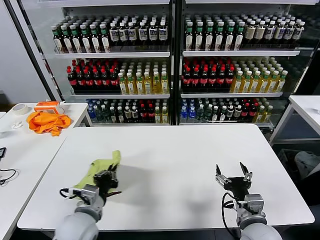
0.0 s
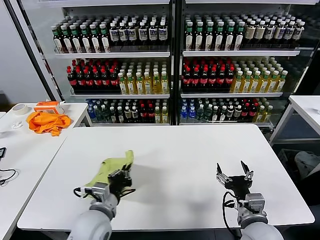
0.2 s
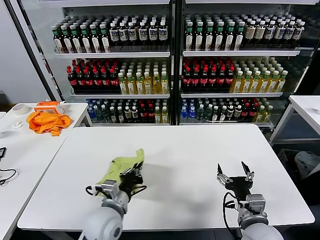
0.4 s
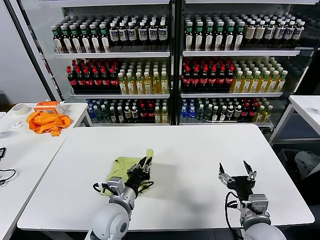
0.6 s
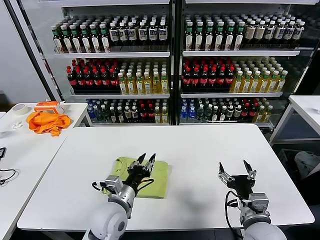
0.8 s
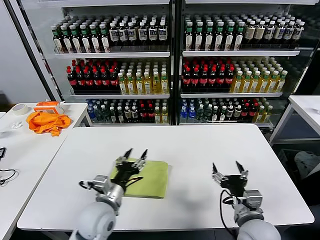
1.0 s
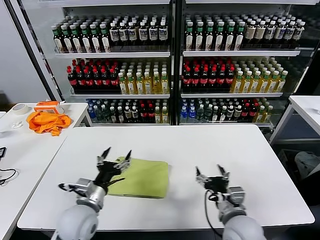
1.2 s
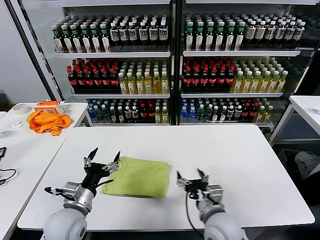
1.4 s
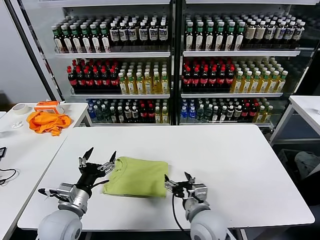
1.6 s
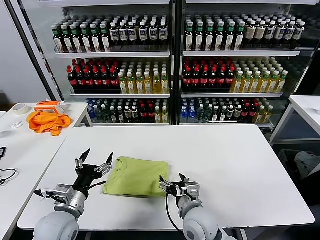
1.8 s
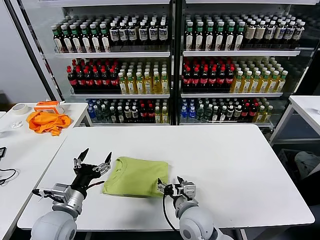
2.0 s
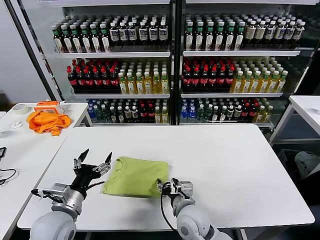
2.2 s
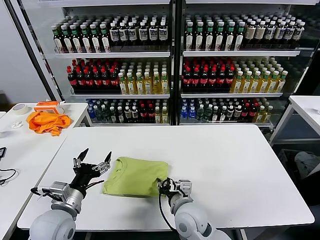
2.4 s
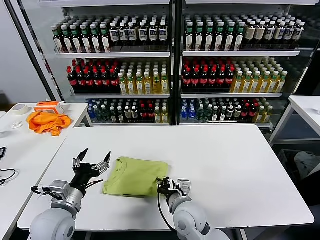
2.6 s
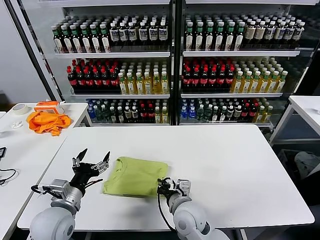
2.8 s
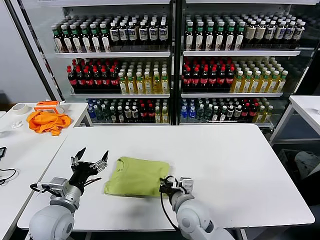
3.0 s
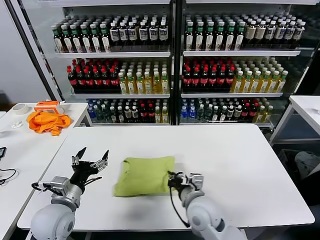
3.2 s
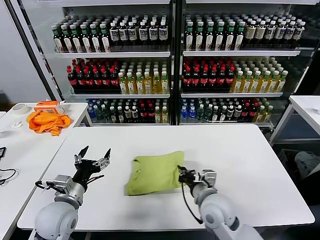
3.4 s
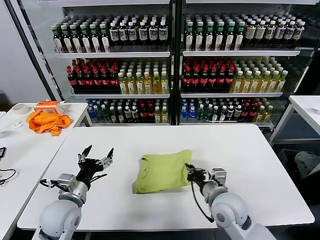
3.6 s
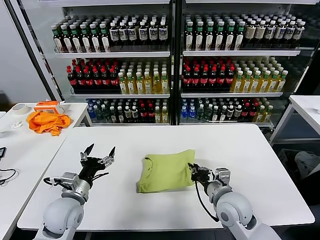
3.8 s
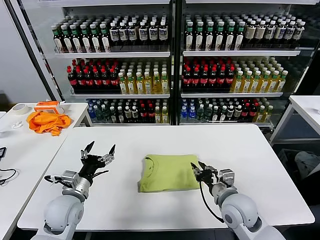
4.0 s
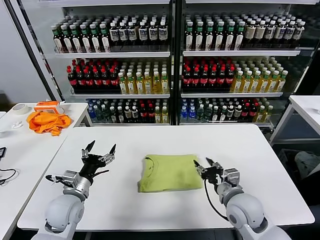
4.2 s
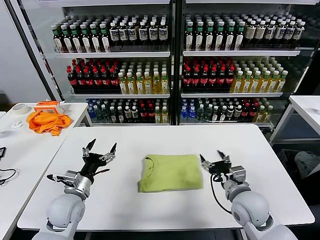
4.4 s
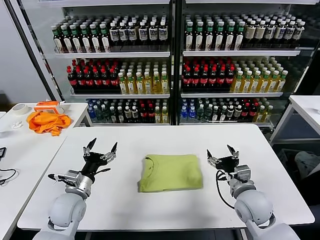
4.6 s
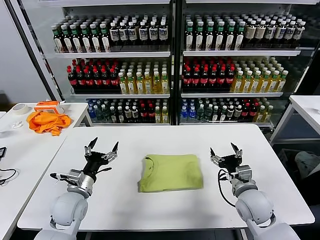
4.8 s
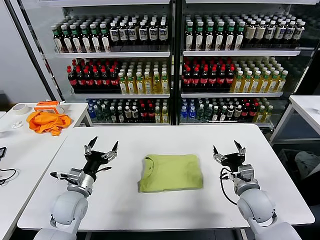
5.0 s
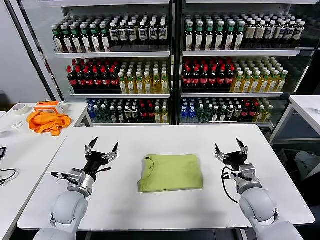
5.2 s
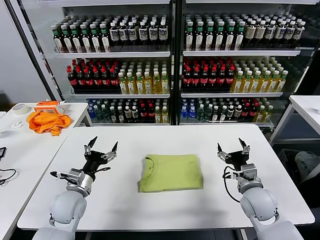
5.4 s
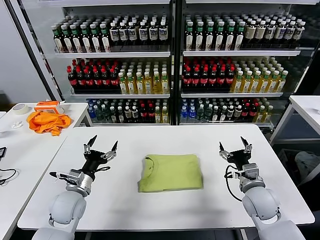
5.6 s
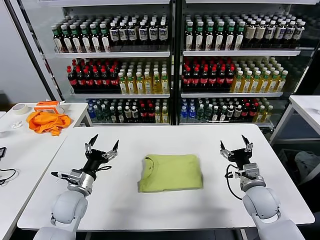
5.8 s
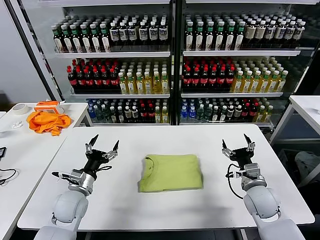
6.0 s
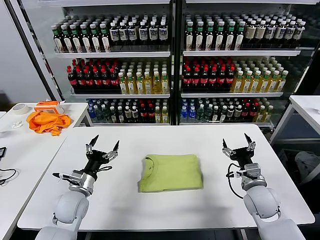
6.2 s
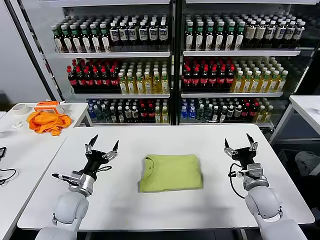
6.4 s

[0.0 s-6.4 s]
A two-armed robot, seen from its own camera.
Task of the whole recording: fold and organize the clothes.
Step, 0.8 to 4.0 s: Drag the clothes to the center of the table.
0.0 to 1.6 s: The left gripper moves approximately 10 cm to the right and comes back, and opens. Meanwhile the right gripper travels to the left by about 10 cm.
1.6 to 3.2 s: The right gripper closes its fingers.
3.2 to 4.8 s: The left gripper goes approximately 5 cm forward. The right gripper travels to the right by approximately 15 cm, and opens its fingers.
4.8 to 6.4 s: The grippers stay close to where they were, moving slightly.

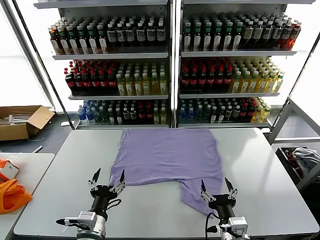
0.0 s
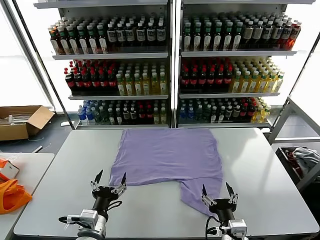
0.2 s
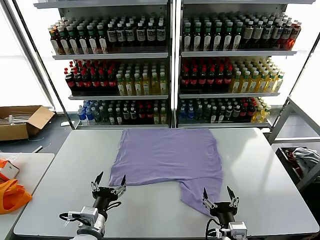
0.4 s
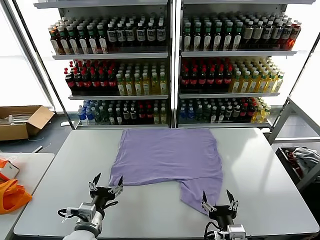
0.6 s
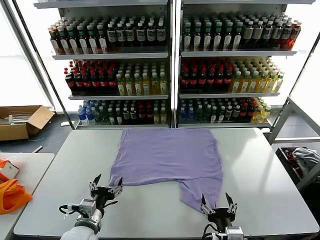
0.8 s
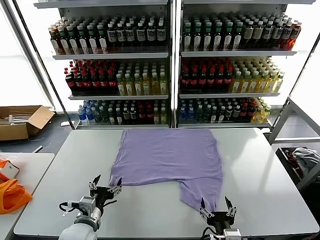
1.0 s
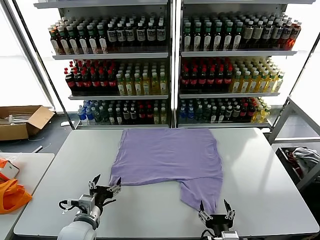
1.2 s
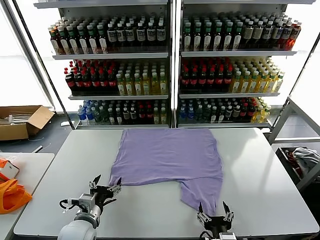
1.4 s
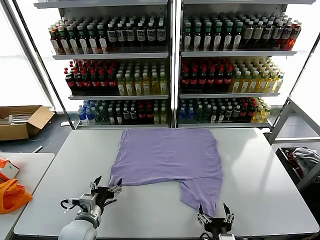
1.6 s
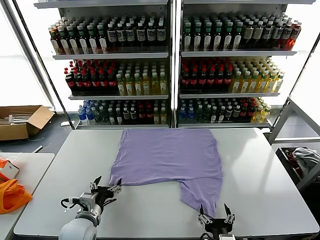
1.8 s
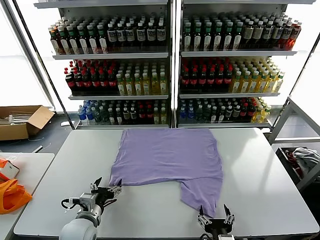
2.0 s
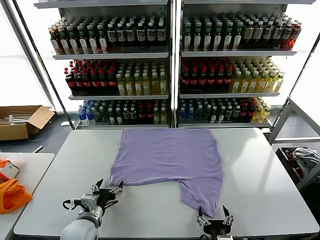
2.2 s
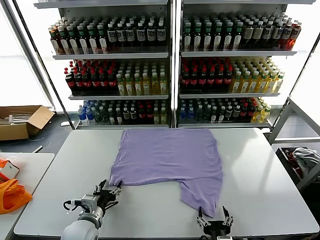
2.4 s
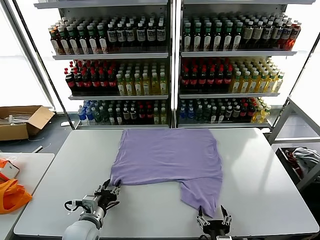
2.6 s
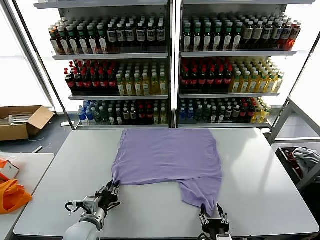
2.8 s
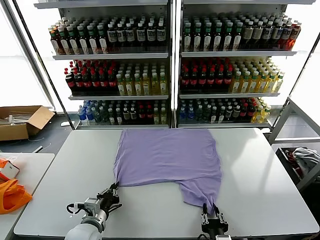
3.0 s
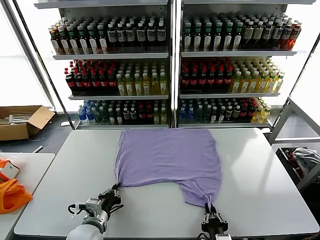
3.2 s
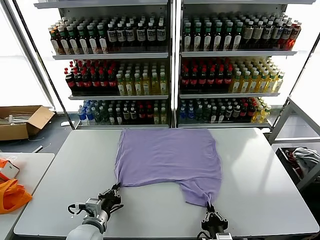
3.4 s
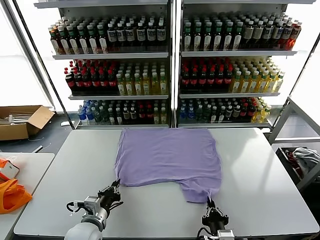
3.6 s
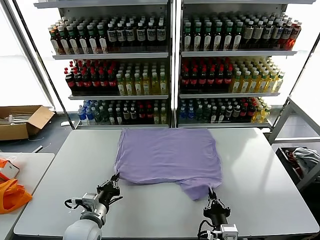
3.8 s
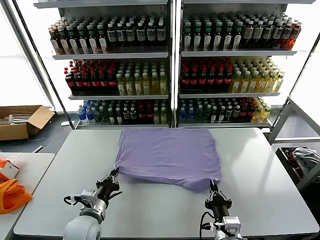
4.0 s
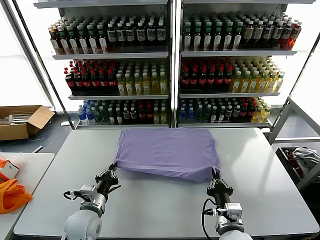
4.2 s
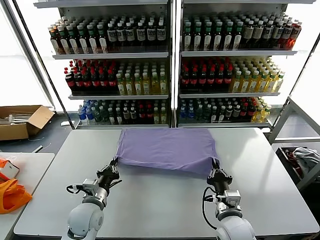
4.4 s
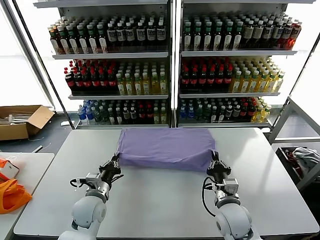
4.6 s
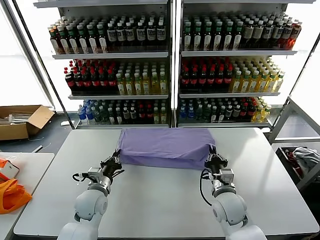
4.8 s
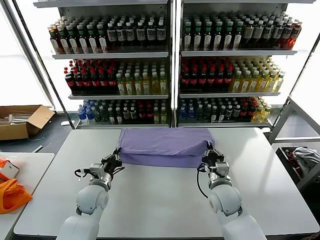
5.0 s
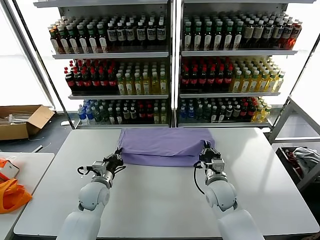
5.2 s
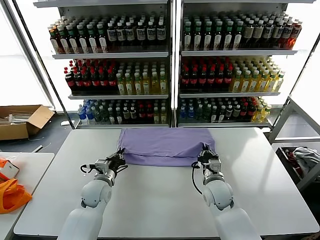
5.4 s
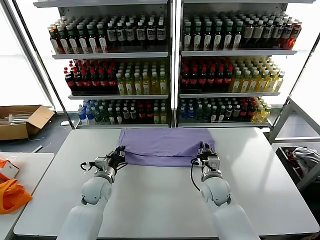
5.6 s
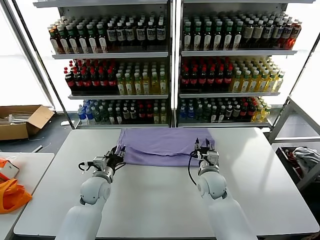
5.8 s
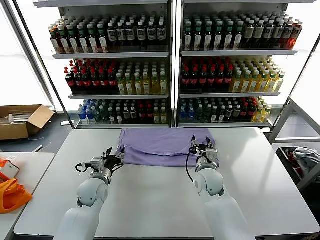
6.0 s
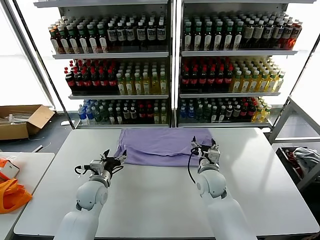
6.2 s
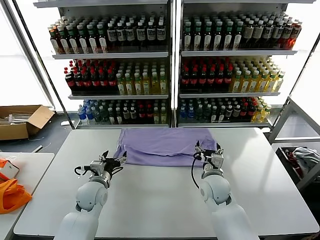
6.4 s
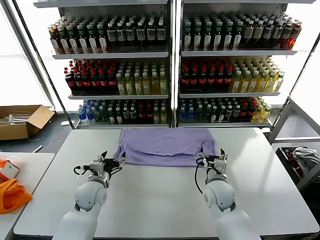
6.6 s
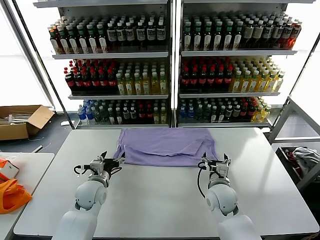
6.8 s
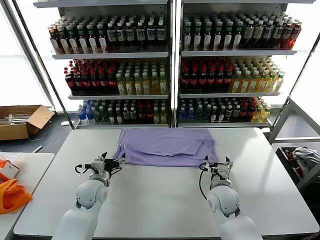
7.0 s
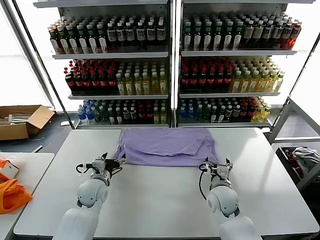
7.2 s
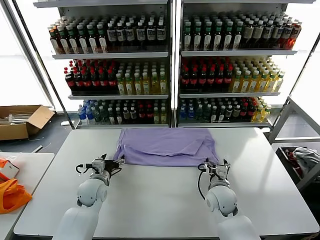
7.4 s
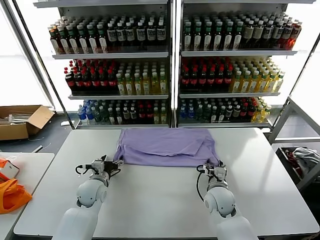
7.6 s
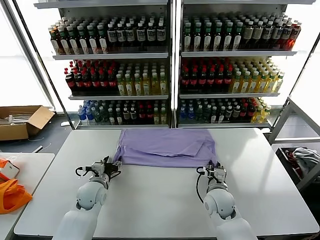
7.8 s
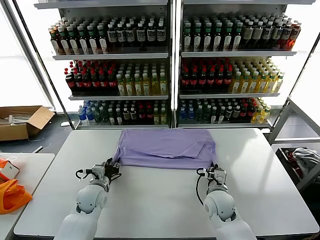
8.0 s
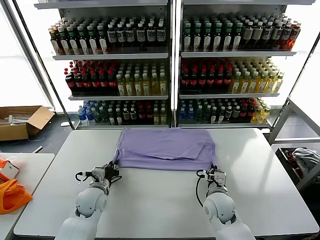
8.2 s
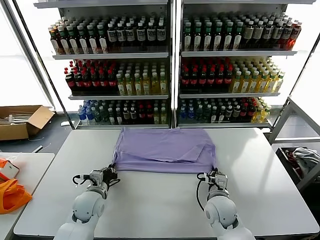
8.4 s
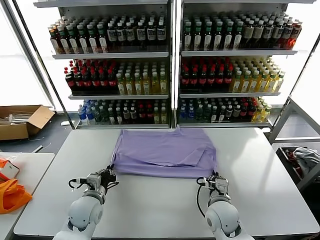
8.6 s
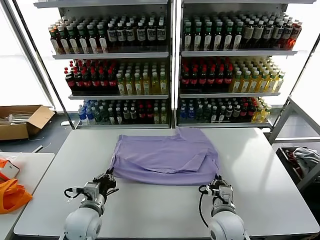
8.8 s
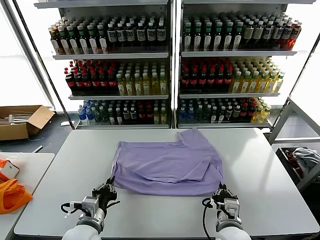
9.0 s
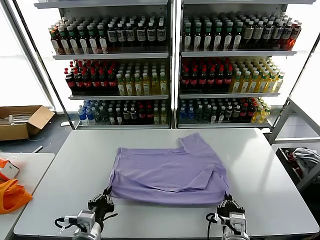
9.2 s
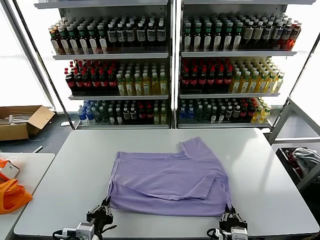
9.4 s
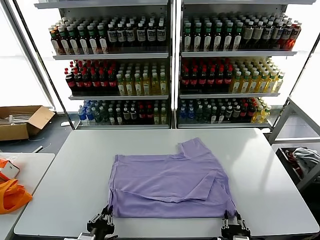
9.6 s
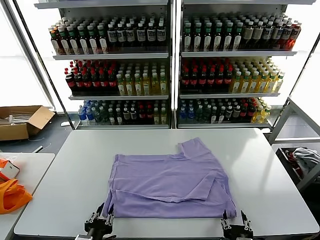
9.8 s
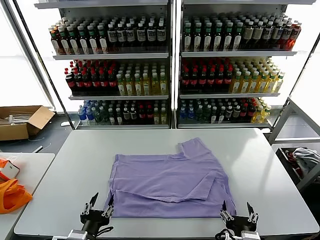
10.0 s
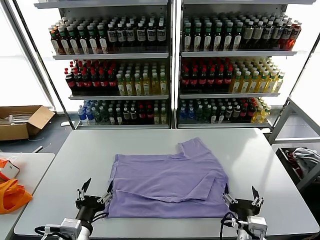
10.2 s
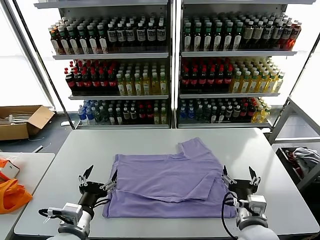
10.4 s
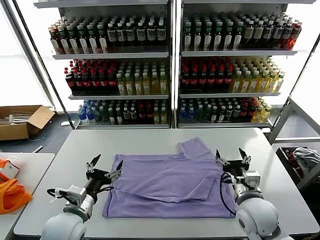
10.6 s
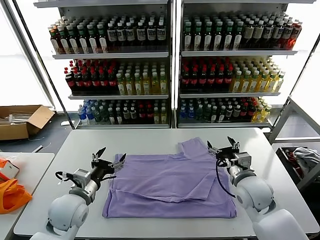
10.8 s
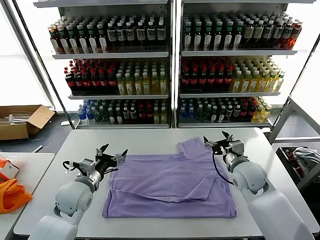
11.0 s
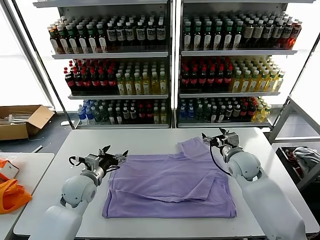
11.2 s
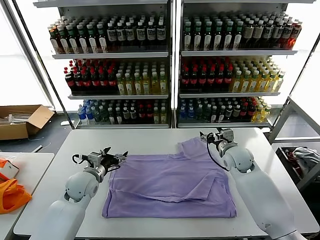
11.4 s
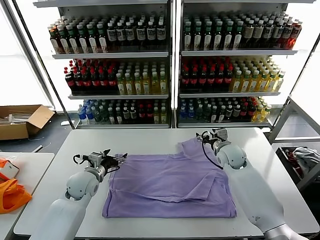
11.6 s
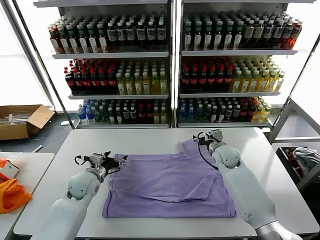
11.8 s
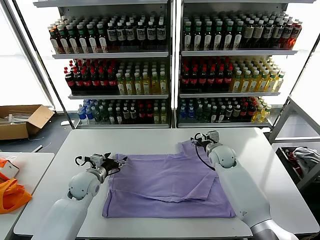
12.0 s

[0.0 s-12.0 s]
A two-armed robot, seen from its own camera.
Task of the whole recording: fold and organize the clothes.
Step, 0.0 to 3.4 s: use both grippers simultaneously to clamp the lower edge of the clothing fabric.
Step, 3.8 to 5.8 s: use both grippers to drag the lower edge of the fabric forward and fold it over the upper edge.
Step, 6.0 to 9.8 s: Drag the clothes downward with both gripper.
1.6 to 3.0 s: The left gripper closes up, while the right gripper closes up.
3.0 to 4.4 s: The left gripper travels forward by approximately 5 cm; the right gripper is displaced forward by about 15 cm.
4.4 to 6.0 s: The left gripper moves forward, some 10 cm, and opens up, while the right gripper heads forward, covering approximately 15 cm, and opens up.
6.0 to 7.6 s: The right gripper travels backward by some 5 cm, and closes up.
7.6 to 9.0 s: Both grippers travel together backward, roughly 15 cm. The left gripper closes up; the right gripper closes.
9.0 to 10.4 s: The left gripper opens its fingers, while the right gripper goes approximately 5 cm upward and to the right, reaches approximately 10 cm backward, then returns, and opens up.
10.4 to 12.0 s: Both grippers move forward, about 25 cm.

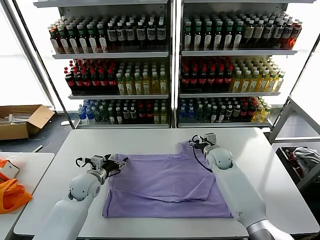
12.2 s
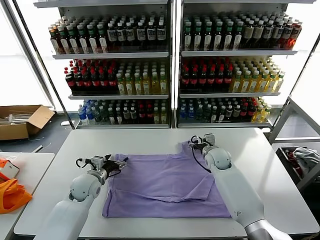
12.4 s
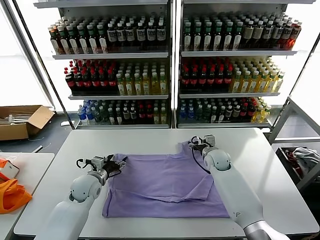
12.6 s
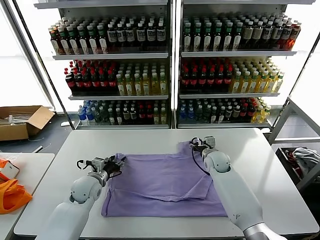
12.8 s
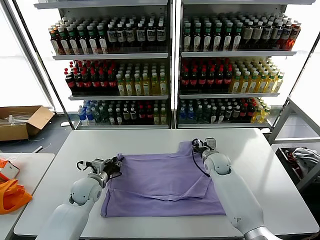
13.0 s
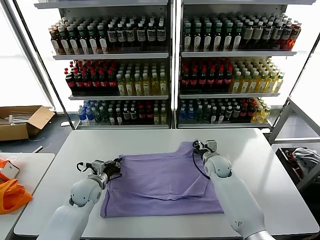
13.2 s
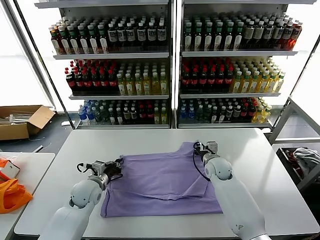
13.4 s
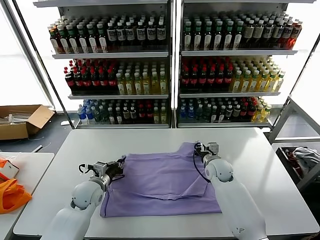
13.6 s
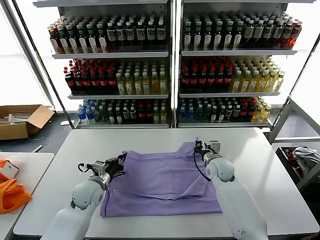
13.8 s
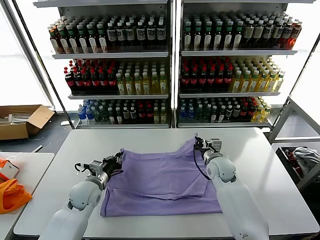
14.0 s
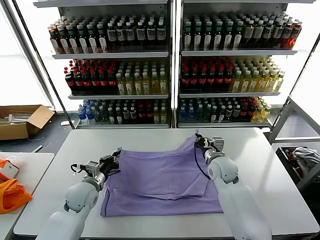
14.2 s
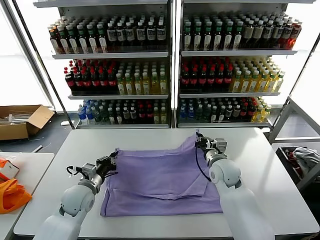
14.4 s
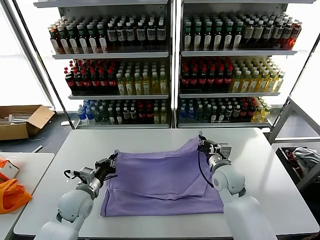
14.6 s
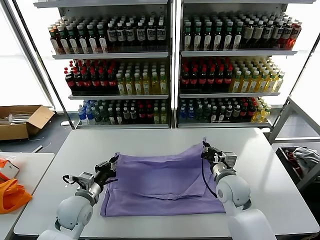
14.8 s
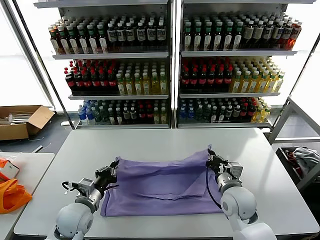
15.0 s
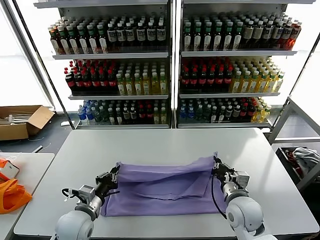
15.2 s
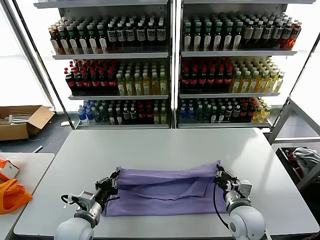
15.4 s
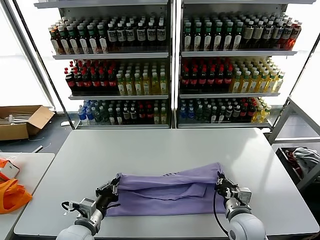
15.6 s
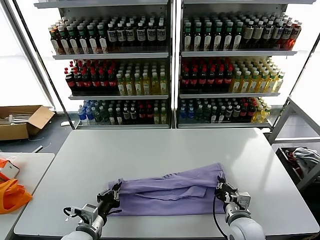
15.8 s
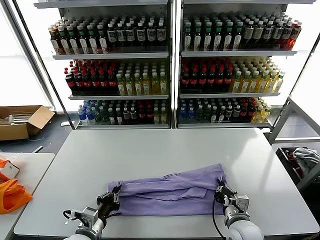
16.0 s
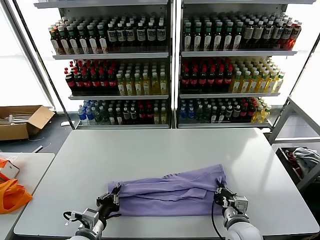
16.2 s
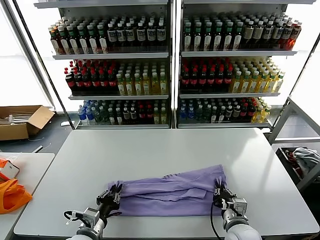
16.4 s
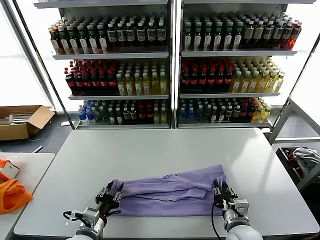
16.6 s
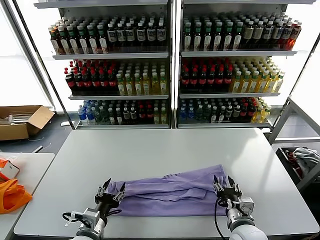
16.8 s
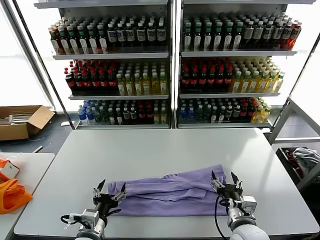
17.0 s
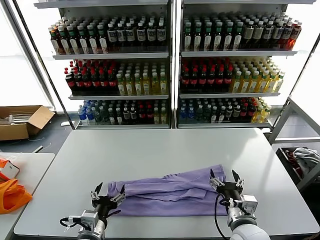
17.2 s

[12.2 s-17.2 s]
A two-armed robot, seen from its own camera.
Task of the whole recording: fold and organize the clothes.
Step, 13.8 to 16.8 s: use both grippers to drag the upper edge of the fabric backward and fold it over the lower edge.
12.2 to 13.8 s: The left gripper closes its fingers. Meanwhile the right gripper moves about 5 cm, and closes.
13.8 to 15.6 s: The grippers both shift backward by approximately 20 cm.
15.6 to 17.2 s: The right gripper opens up; the left gripper moves roughly 5 cm, and opens.
